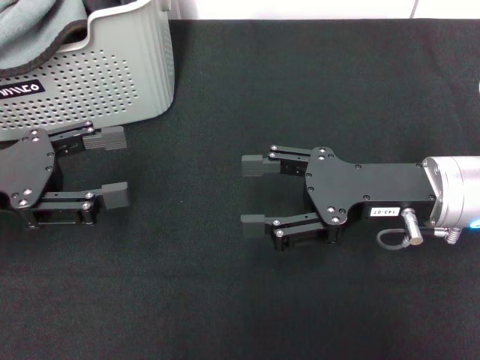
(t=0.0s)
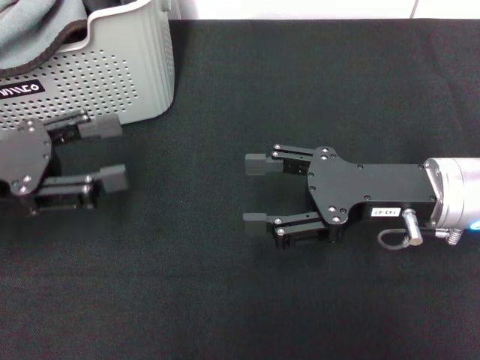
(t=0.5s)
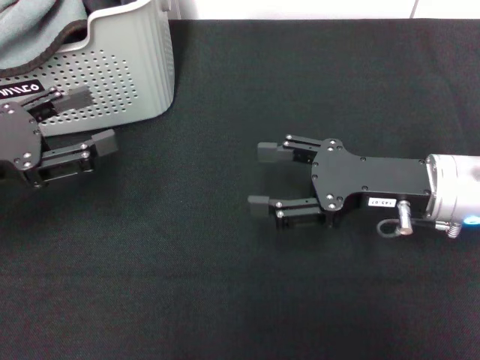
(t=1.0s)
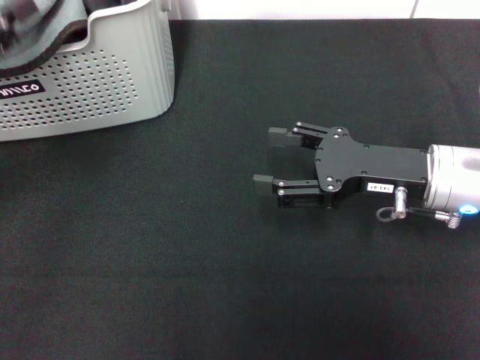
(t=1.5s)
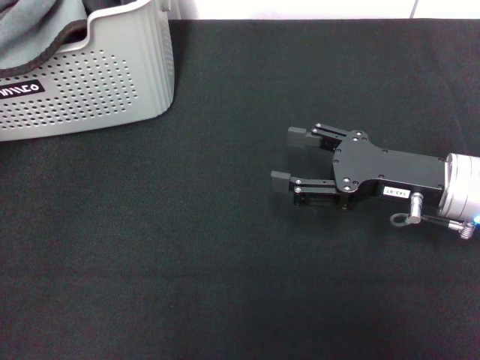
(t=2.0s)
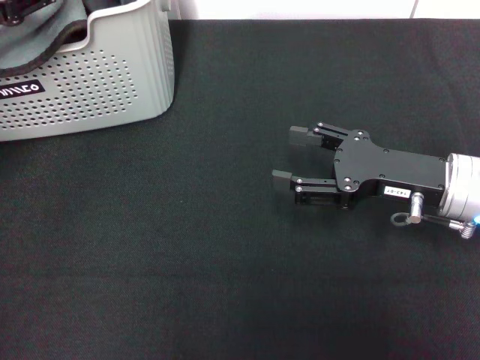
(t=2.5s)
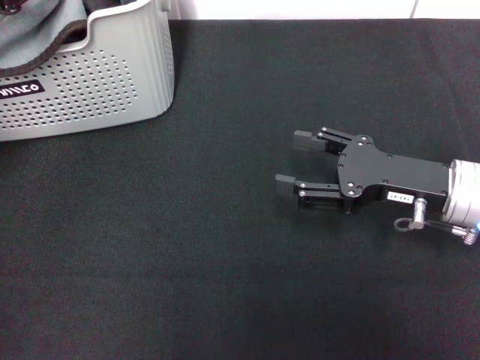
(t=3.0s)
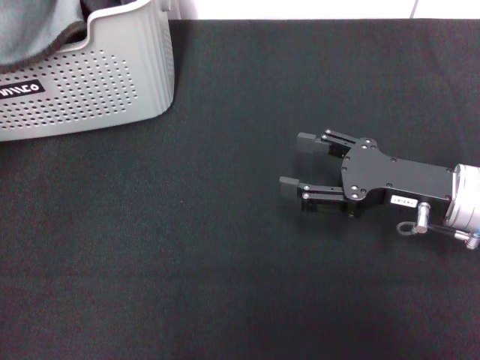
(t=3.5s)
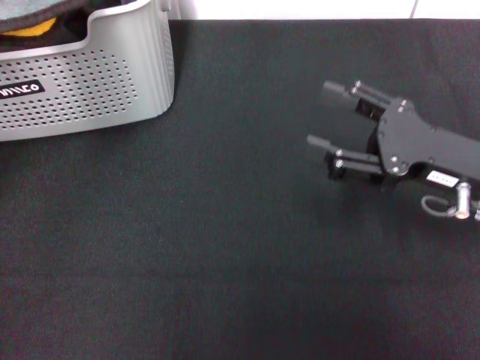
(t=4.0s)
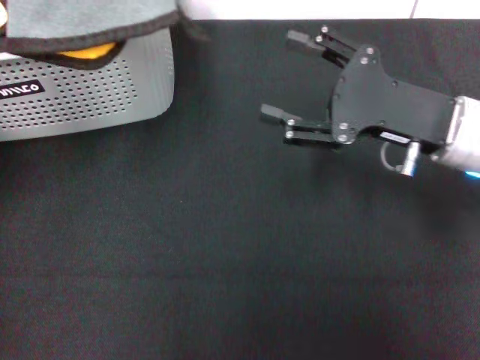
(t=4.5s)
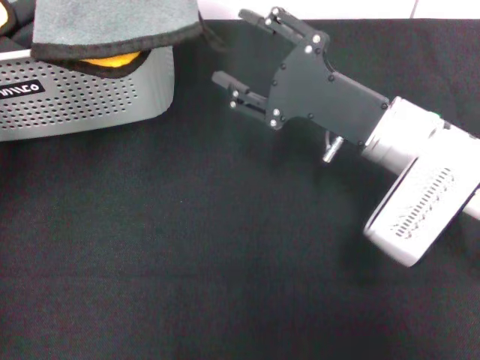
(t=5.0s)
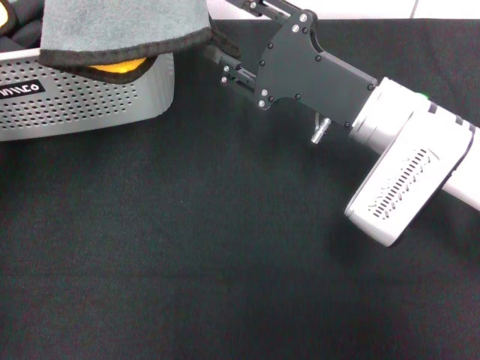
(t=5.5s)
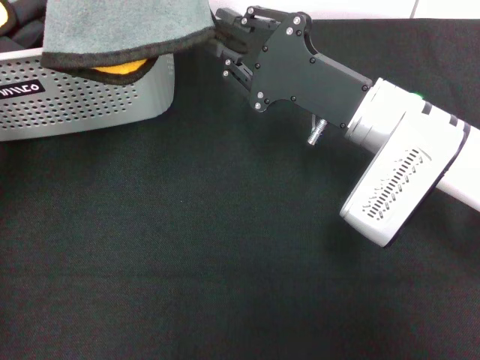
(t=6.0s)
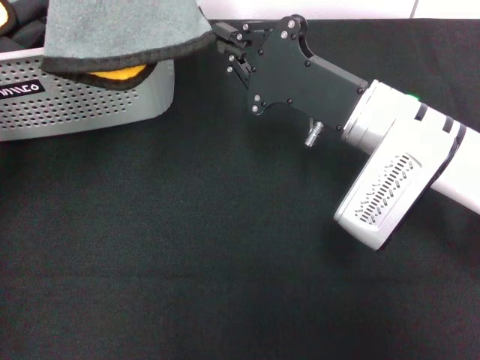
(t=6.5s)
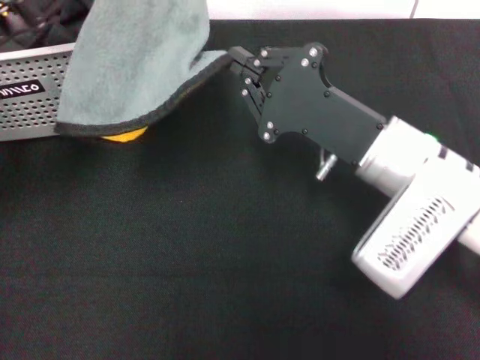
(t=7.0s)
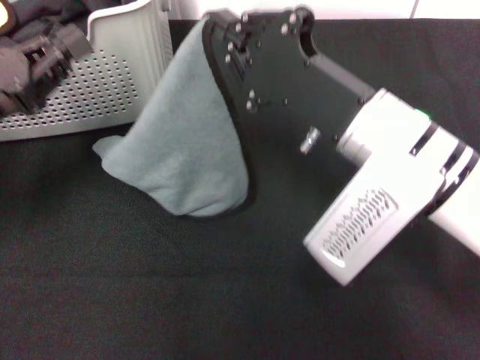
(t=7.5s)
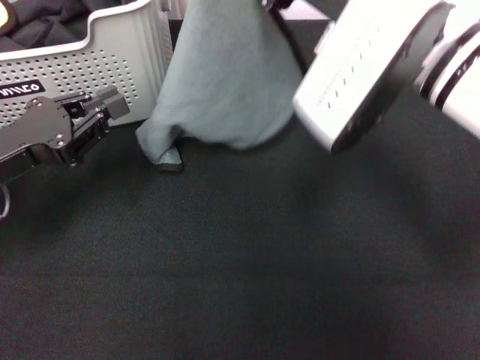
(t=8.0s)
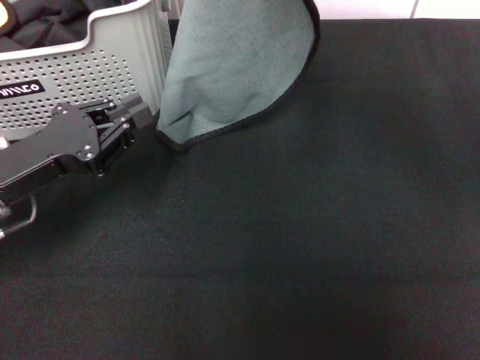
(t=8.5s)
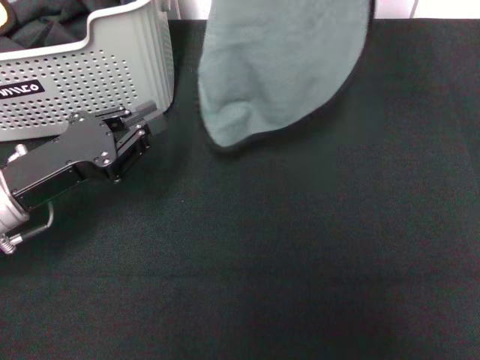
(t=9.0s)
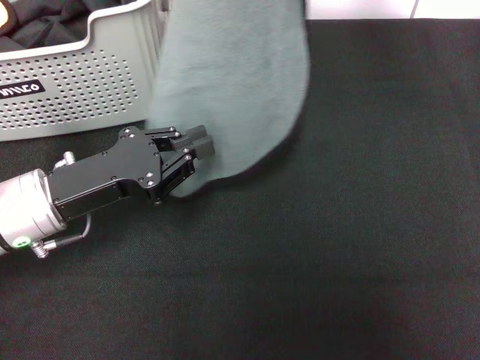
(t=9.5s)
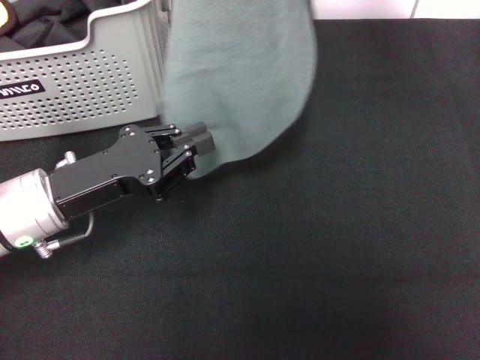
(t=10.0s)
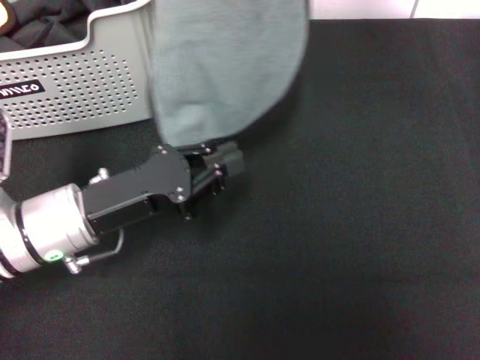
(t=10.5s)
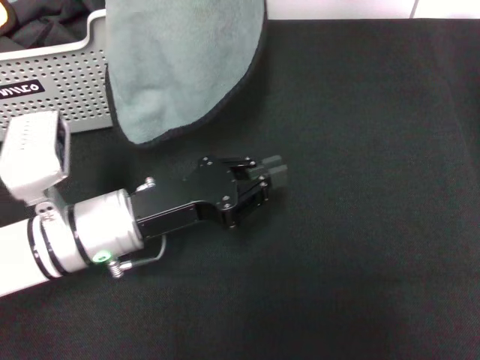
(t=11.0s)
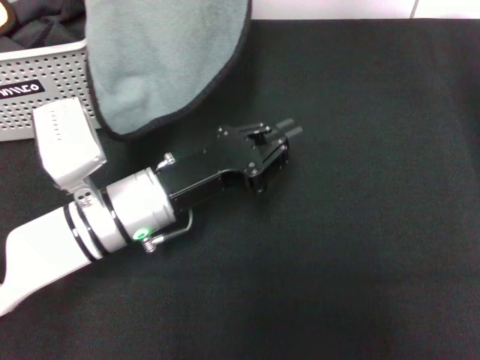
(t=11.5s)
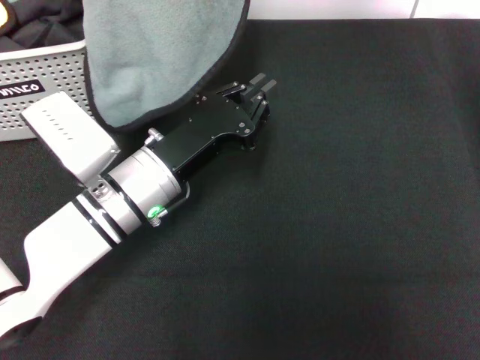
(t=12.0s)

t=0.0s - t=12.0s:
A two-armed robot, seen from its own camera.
Task of the whole recording: pick up the towel from the storage box and lay it flat on the black tablecloth.
Step, t=0.0s - t=3.0s: Pick up a towel with the left gripper.
Step, t=3.5s - t=6.0s: Spread the towel flat with the left gripper.
t=0.0s - t=2.0s: The left gripper goes roughly 10 cm upward and forward.
t=2.0s - t=4.0s: The left gripper closes.
t=4.0s - t=6.0s: The left gripper travels to the right by about 5 cm. Meanwhile the right gripper is displaced to the left by some 10 cm, and closes up.
t=6.0s - t=8.0s: The left gripper shifts roughly 10 cm downward and backward, while the right gripper moves upward, about 10 cm, and closes.
t=8.0s - t=10.0s: The right gripper is displaced upward by roughly 15 cm; the left gripper moves to the right, some 5 cm.
t=10.0s - t=12.0s: The left gripper shifts approximately 10 cm to the right. The right gripper moves some 5 cm.

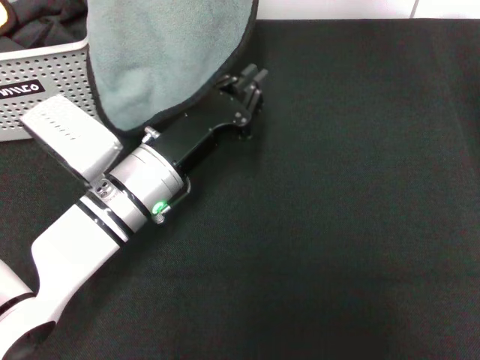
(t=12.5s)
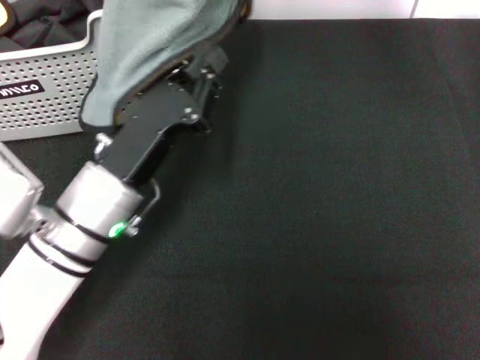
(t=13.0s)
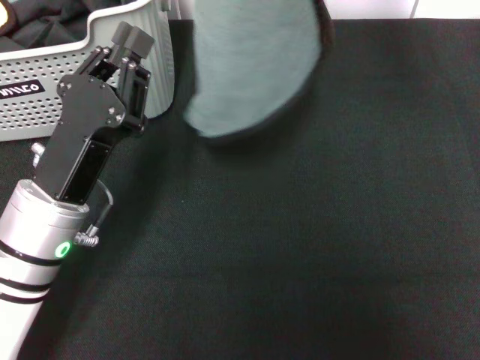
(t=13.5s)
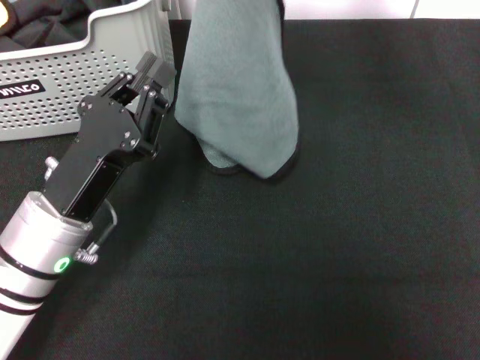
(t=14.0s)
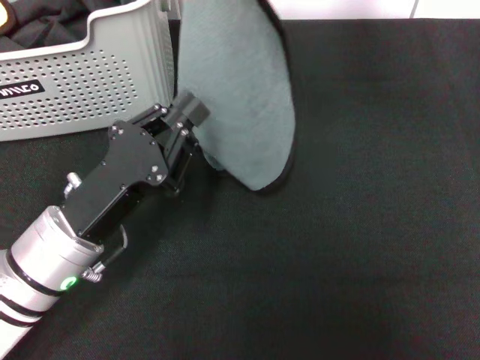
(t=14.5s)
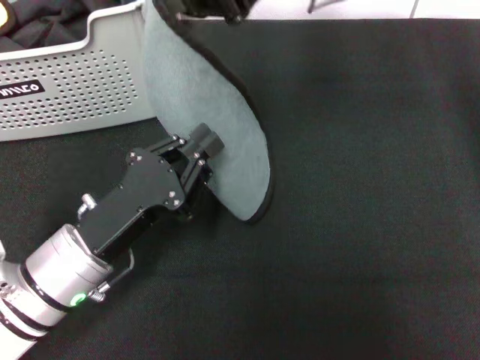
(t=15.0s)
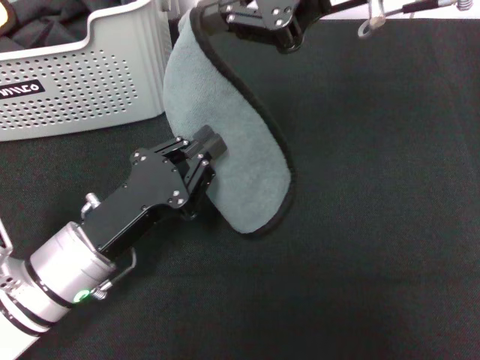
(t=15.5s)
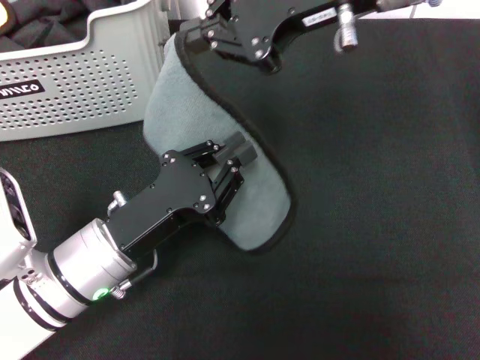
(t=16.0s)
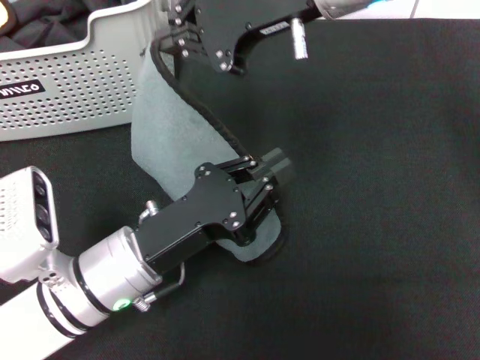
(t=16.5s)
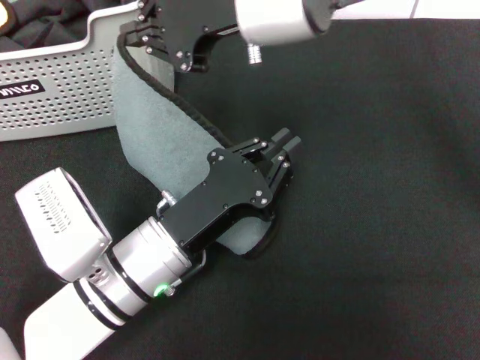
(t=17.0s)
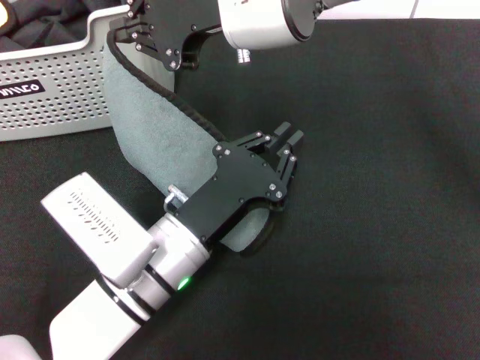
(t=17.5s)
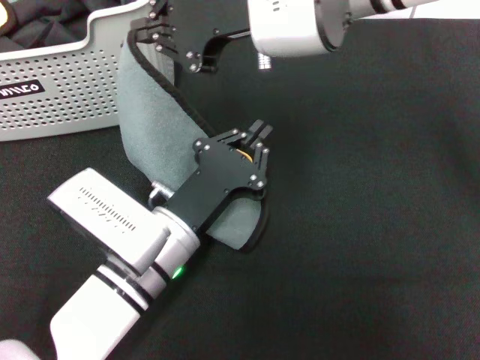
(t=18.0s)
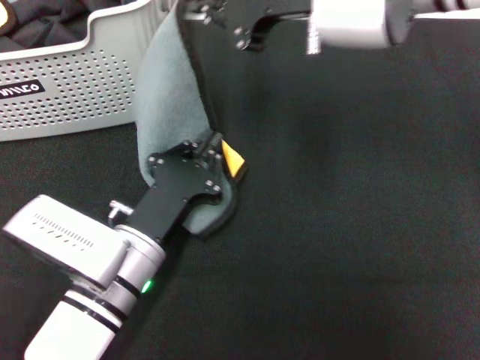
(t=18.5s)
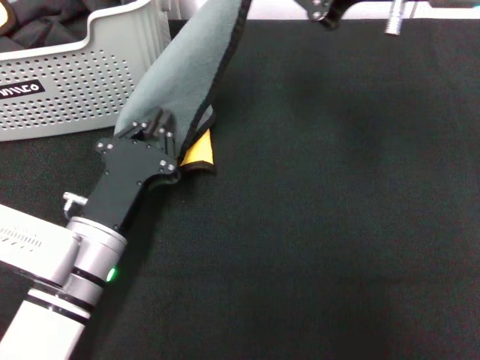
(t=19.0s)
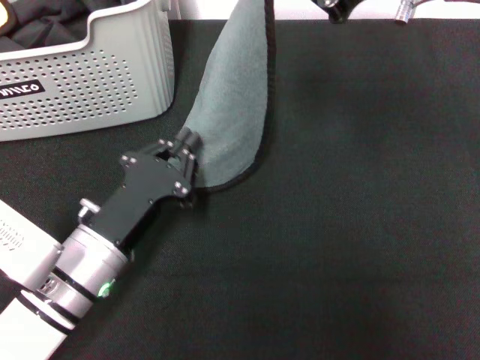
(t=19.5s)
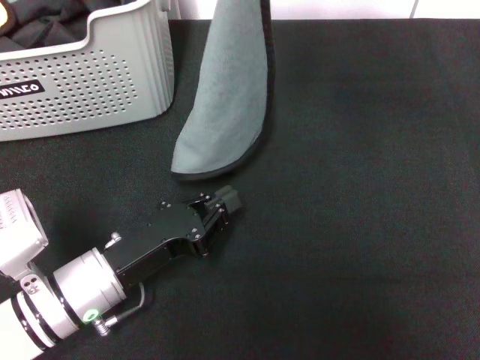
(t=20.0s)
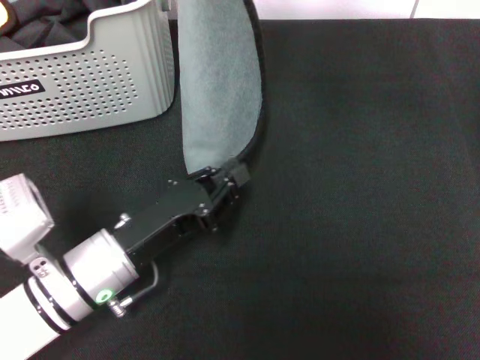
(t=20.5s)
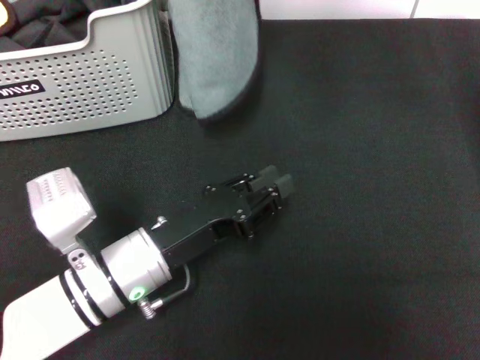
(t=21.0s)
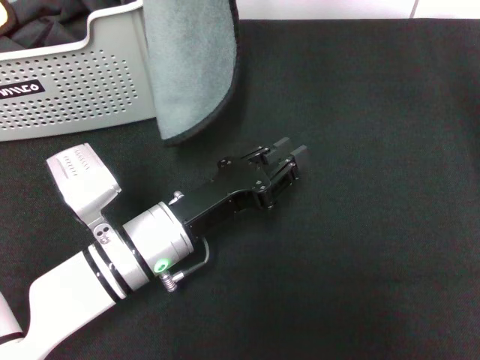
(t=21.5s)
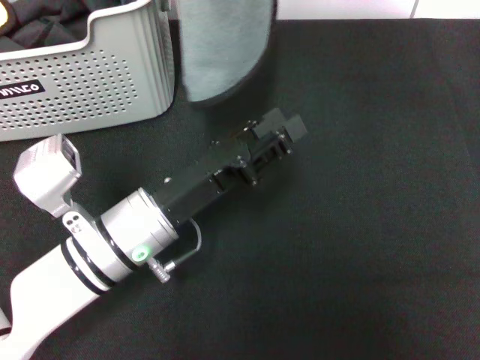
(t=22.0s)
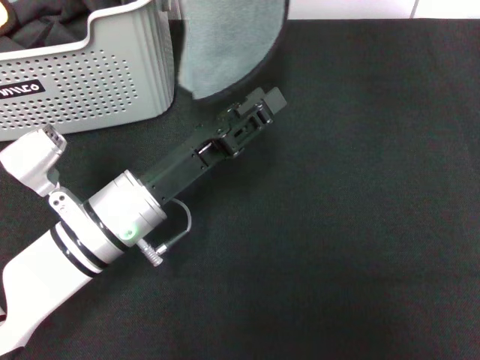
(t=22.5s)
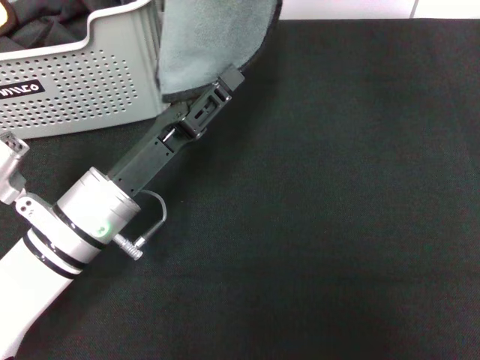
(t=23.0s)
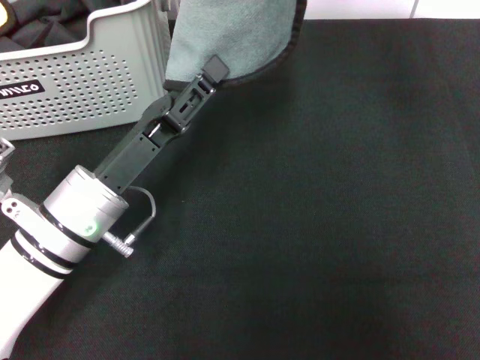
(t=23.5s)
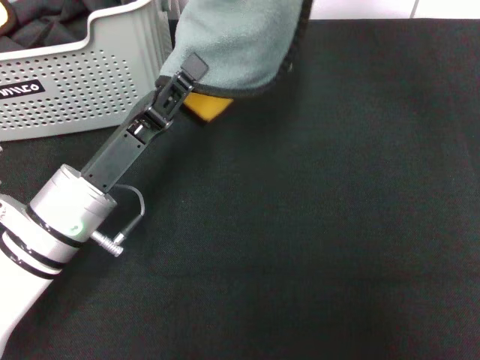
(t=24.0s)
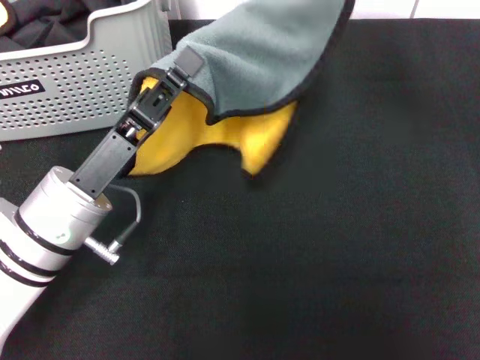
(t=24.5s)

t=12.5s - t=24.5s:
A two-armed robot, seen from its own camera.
Task of the whole recording: pick up the towel from the storage box and lay it flat on the black tablecloth.
t=12.5s - t=14.5s: The left gripper moves backward and to the left, some 10 cm; the right gripper travels downward by about 10 cm.
t=14.5s - t=16.5s: The right gripper is displaced to the left by approximately 5 cm.
t=18.5s - t=20.5s: The right gripper heads upward, covering some 5 cm.
t=20.5s - t=22.5s: The left gripper ends up approximately 5 cm from where it was, and opens its fingers. Meanwhile the right gripper shifts about 5 cm upward.
t=22.5s - t=24.5s: The left gripper closes up. The right gripper travels downward and to the right by about 15 cm.

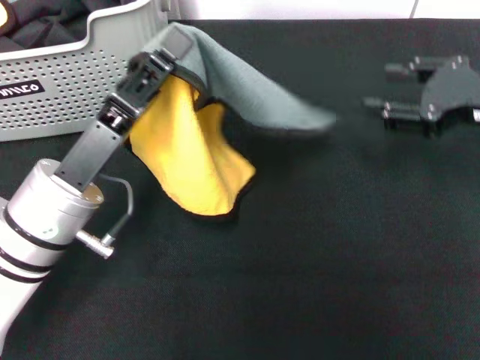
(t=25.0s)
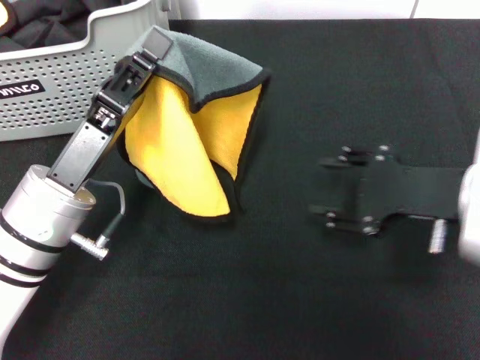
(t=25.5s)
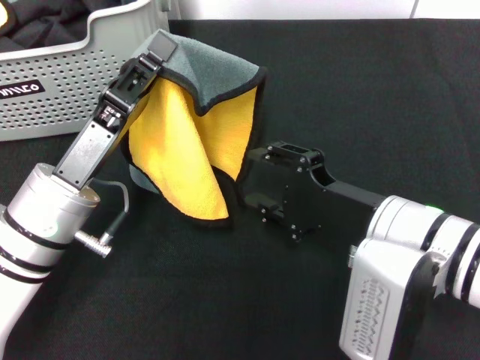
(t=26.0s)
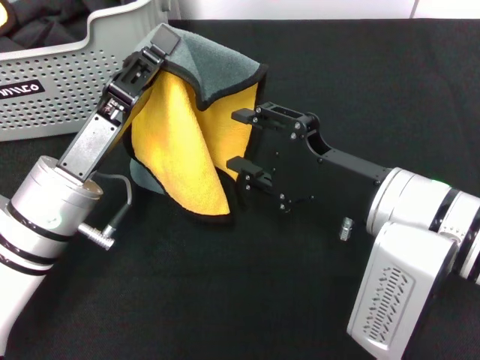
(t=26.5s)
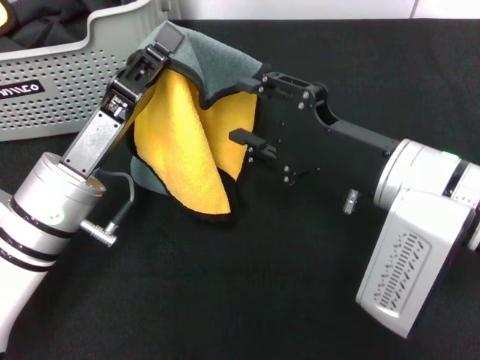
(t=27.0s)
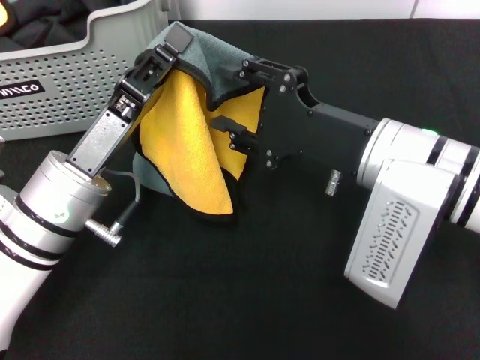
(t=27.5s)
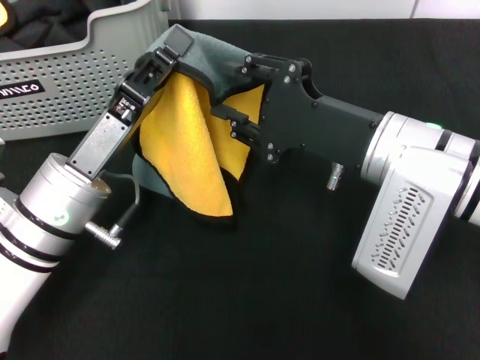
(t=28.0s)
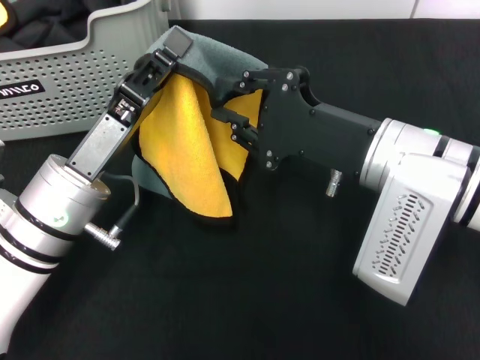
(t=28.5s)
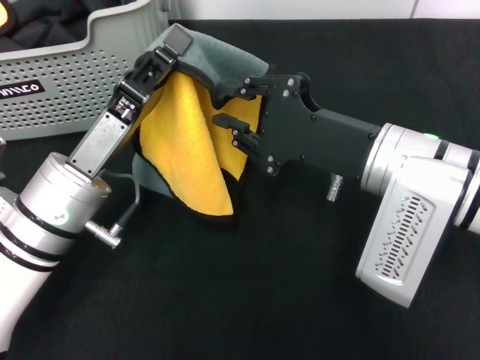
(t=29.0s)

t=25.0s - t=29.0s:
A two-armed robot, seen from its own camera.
Task of the whole recording: pick up the towel from the storage box and lay it flat on the black tablecloth.
t=25.0s - t=27.0s: The right gripper heads to the left and backward, covering about 15 cm.
